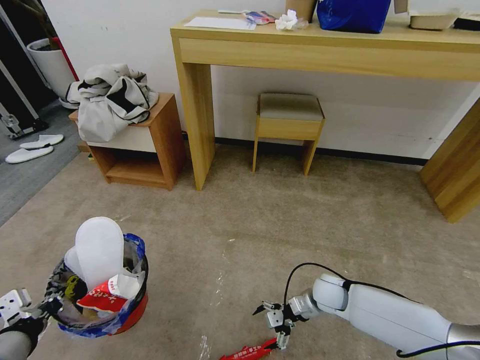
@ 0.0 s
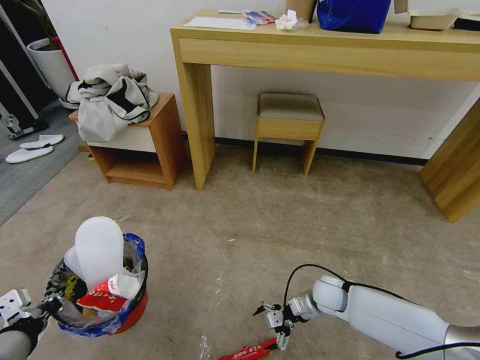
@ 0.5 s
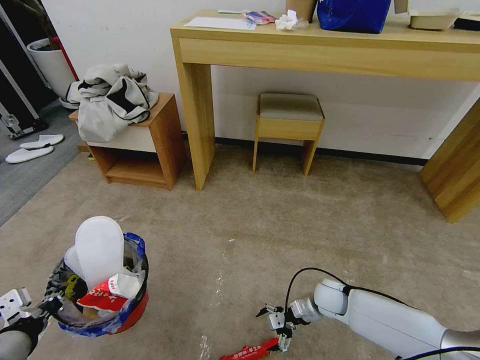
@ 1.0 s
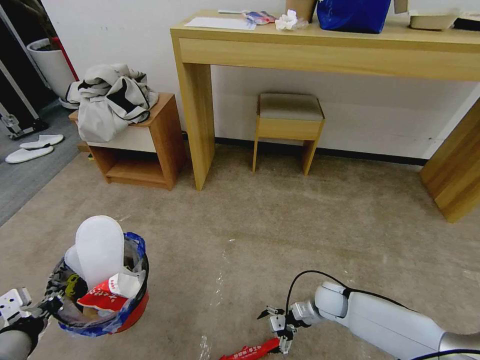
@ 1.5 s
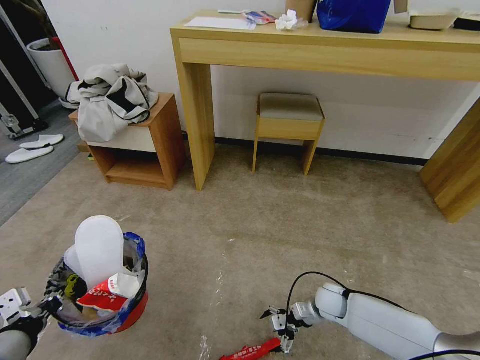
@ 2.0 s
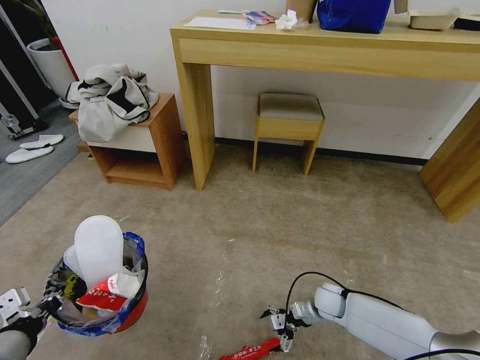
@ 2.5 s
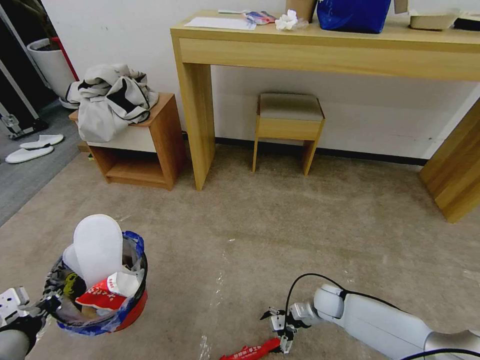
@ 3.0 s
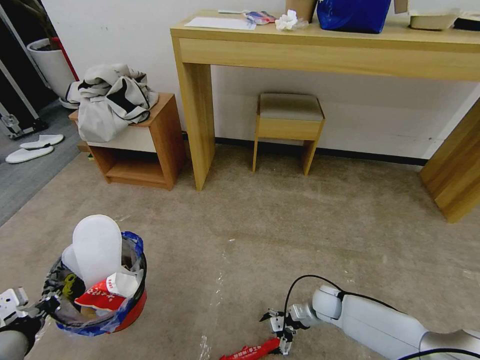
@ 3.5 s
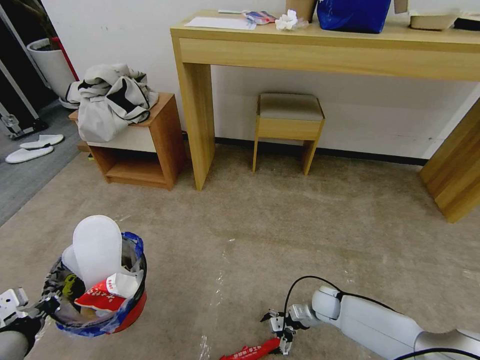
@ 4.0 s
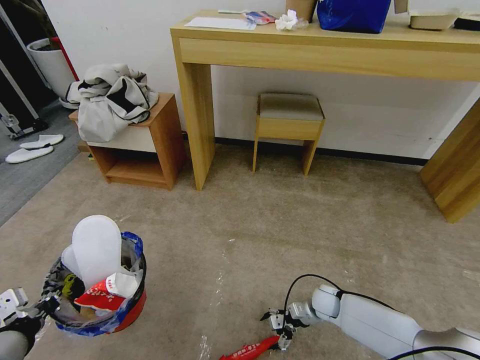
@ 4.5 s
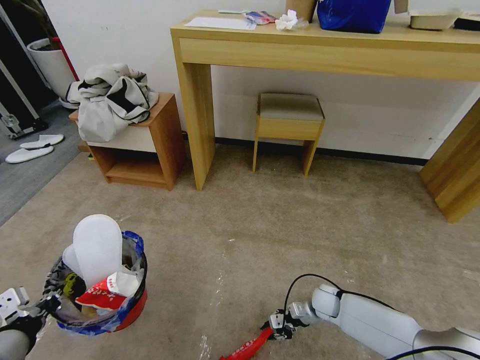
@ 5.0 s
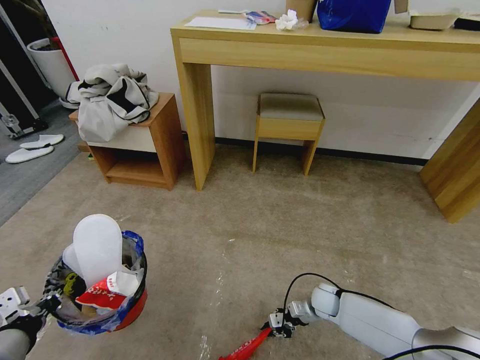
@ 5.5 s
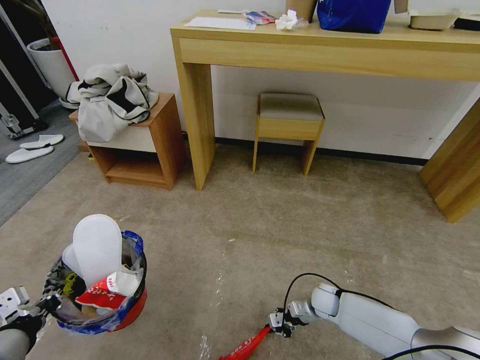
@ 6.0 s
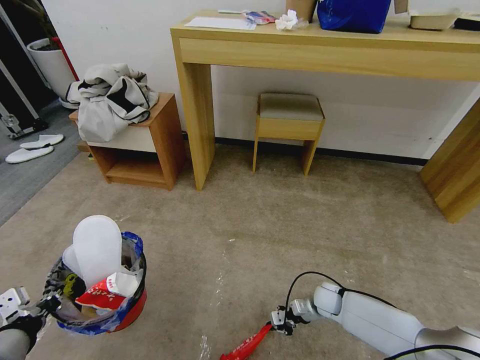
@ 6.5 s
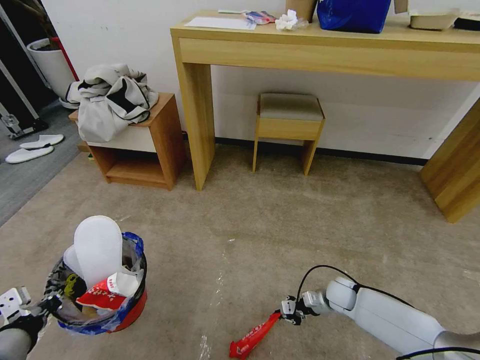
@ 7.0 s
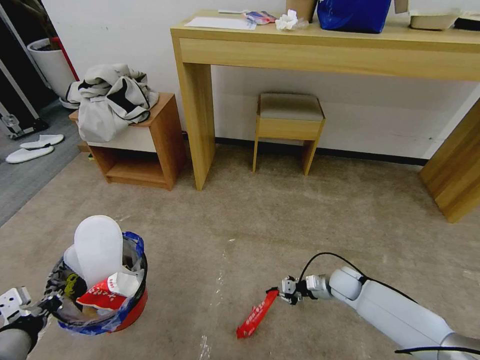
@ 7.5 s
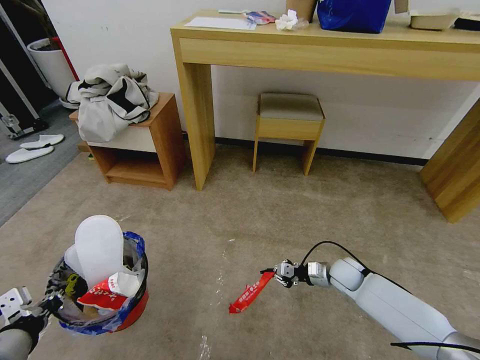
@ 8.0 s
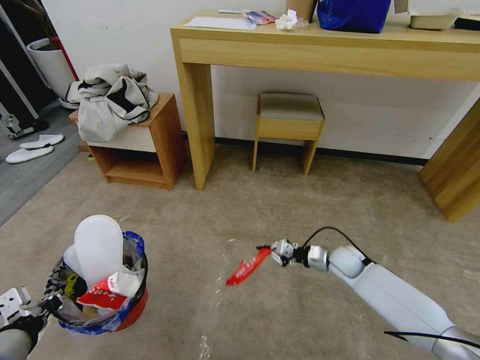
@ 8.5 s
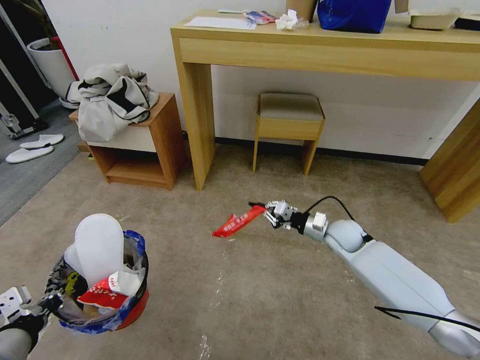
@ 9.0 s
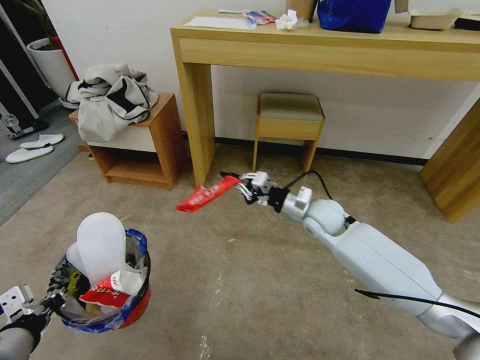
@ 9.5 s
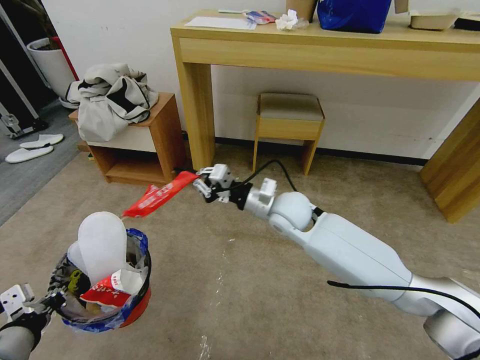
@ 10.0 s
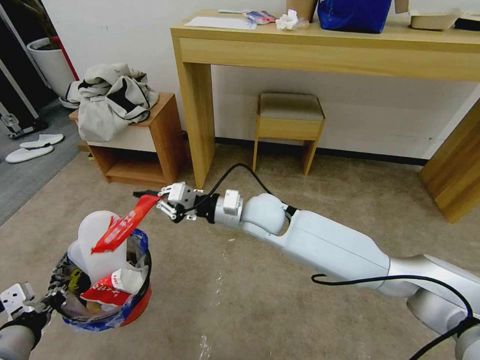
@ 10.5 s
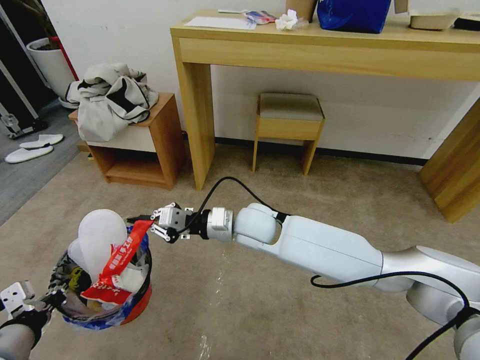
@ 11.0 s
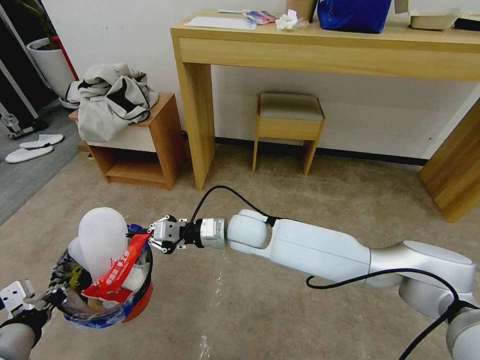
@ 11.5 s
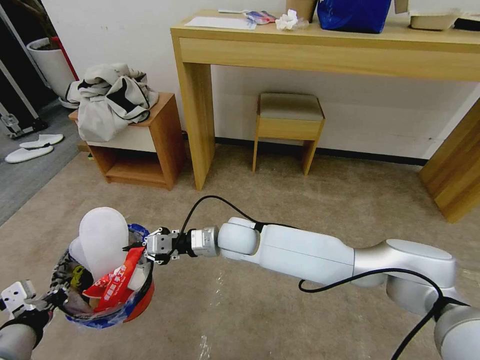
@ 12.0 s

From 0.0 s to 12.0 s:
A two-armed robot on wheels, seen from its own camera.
Task of the whole recording: Pick up the trash bin and place the garbage on the floor into it.
From 0.0 s to 2.0 s: The right gripper ends up roughly 5 cm from where it was.
From 2.0 s to 4.0 s: There are only small adjustments of the grippers.
From 4.0 s to 6.0 s: The right gripper closes.
From 6.0 s to 8.0 s: The right gripper heads upward, covering some 10 cm.
From 8.0 s to 10.0 s: The right gripper moves upward and to the left, about 30 cm.
From 10.0 s to 12.0 s: The right gripper shifts some 15 cm to the left and downward.

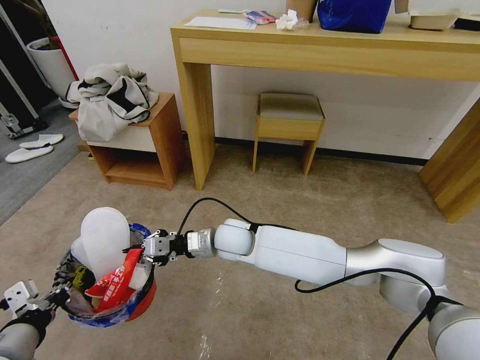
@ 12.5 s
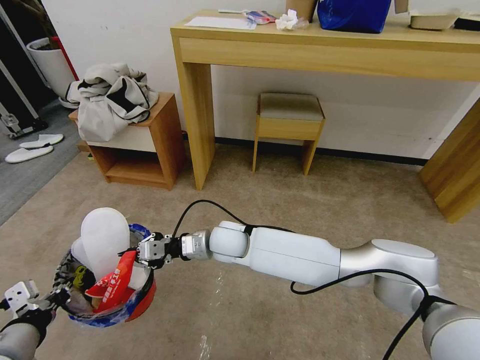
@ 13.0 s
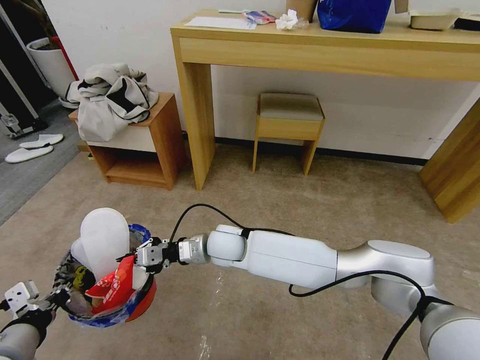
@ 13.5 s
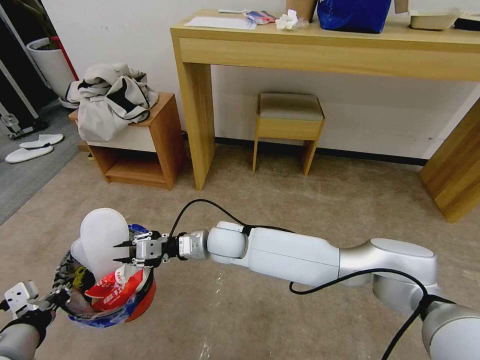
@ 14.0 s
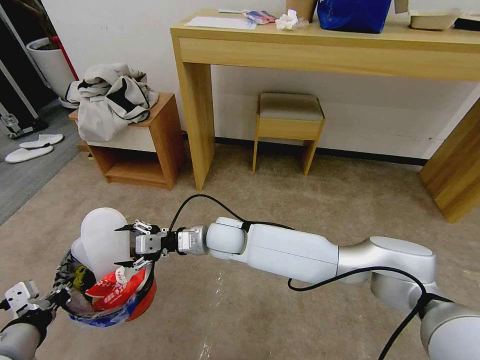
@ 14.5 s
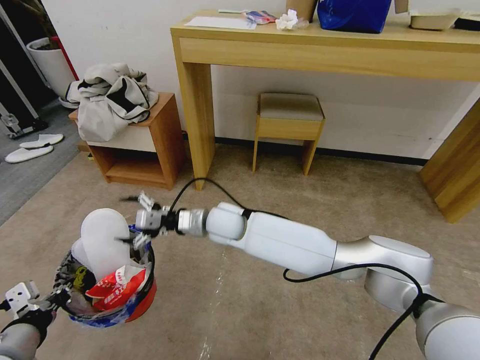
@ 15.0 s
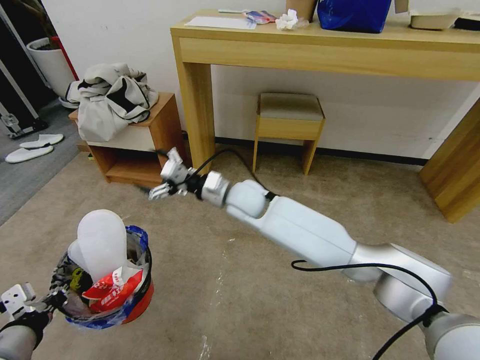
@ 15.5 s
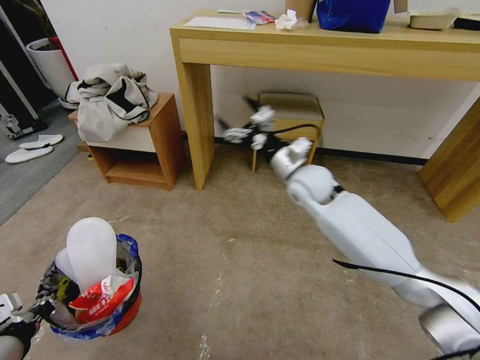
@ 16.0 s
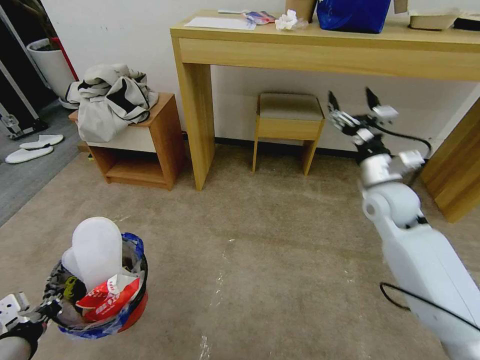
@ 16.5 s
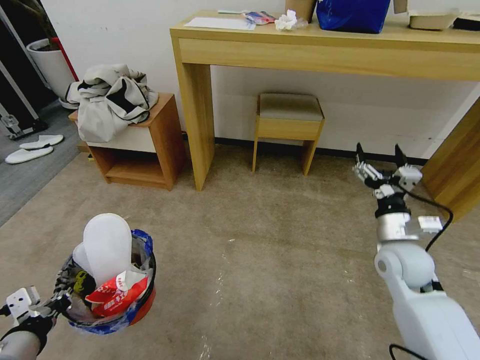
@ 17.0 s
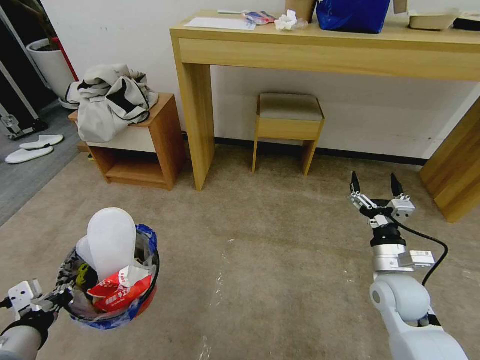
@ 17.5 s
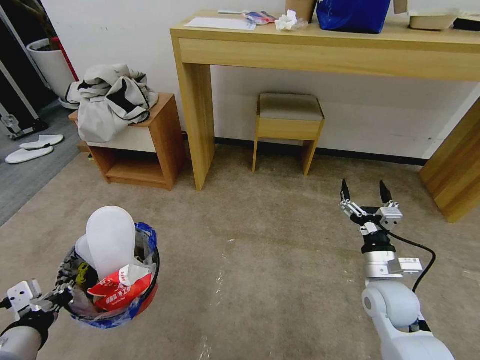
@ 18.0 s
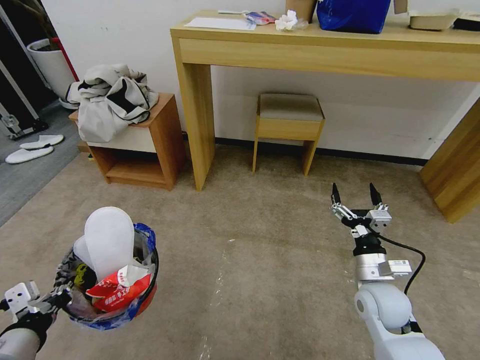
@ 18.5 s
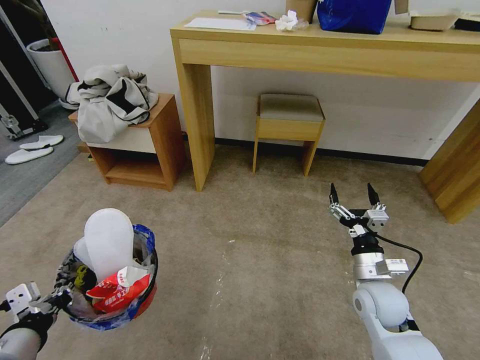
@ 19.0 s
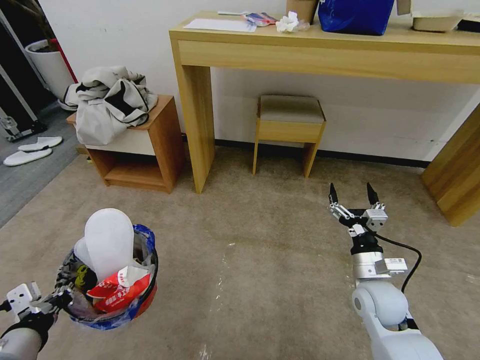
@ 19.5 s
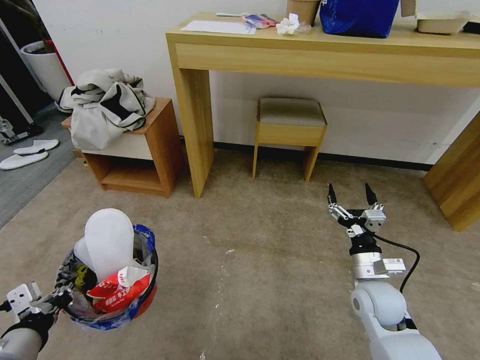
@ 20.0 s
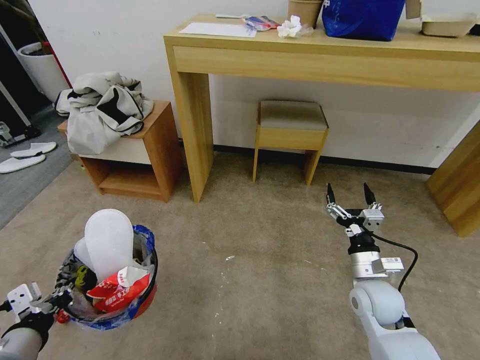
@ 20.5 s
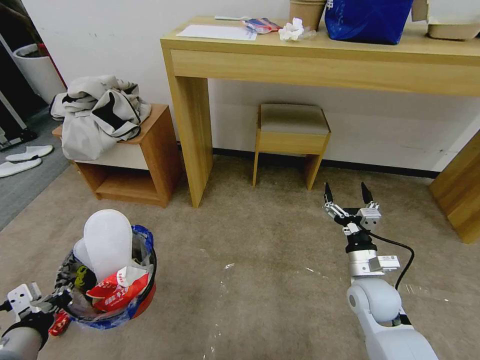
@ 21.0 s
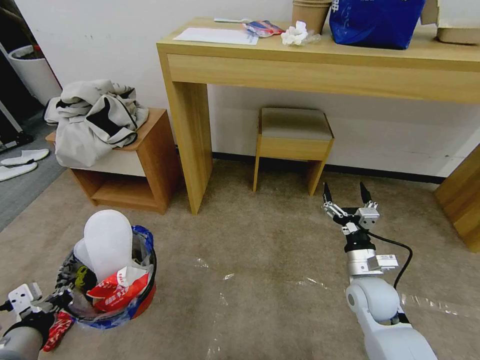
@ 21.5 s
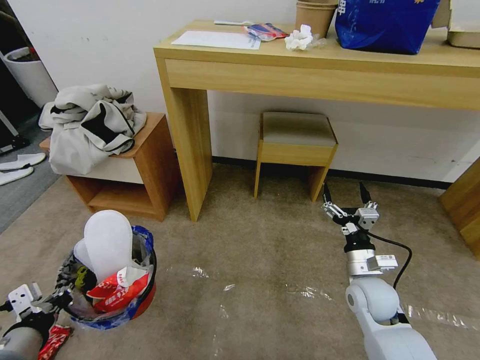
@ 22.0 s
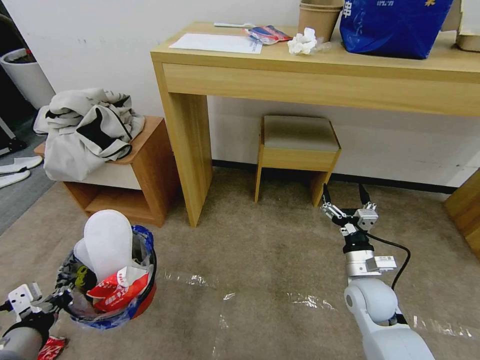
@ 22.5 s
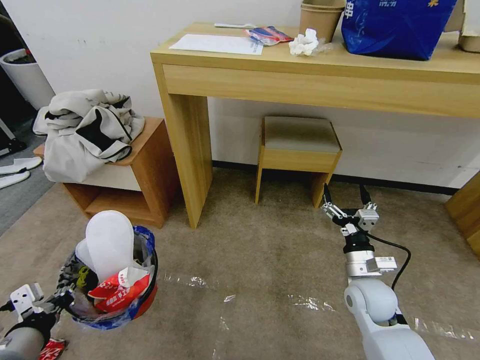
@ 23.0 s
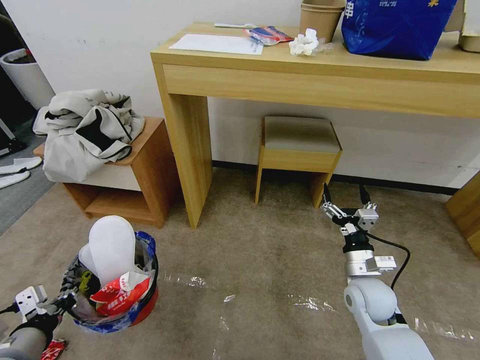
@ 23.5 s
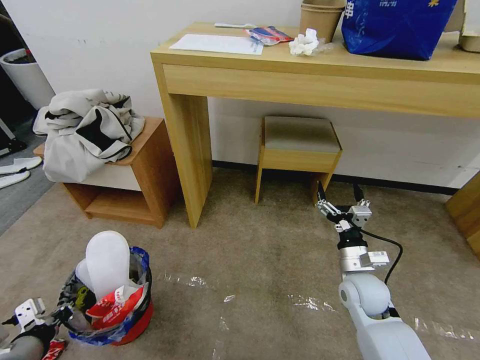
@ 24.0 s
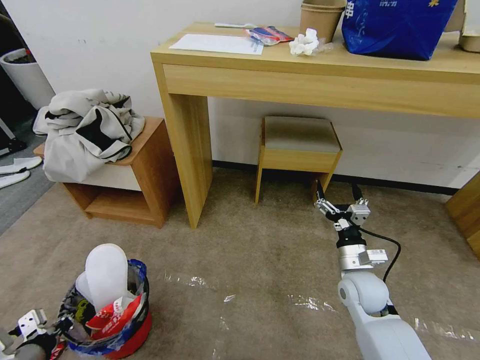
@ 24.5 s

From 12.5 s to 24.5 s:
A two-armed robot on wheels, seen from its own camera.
Task of the whole recording: Pick up the trash bin and place the garbage on the floor into it.
From 12.5 s to 14.5 s: The right gripper opens.
From 14.5 s to 16.5 s: The right gripper goes approximately 35 cm to the right.
From 16.5 s to 18.5 s: The right gripper goes roughly 20 cm downward and backward.
From 22.5 s to 24.5 s: The left gripper travels downward by roughly 10 cm.

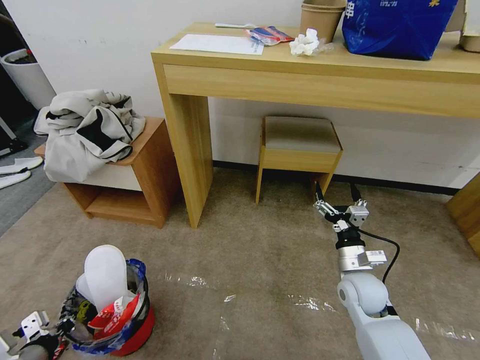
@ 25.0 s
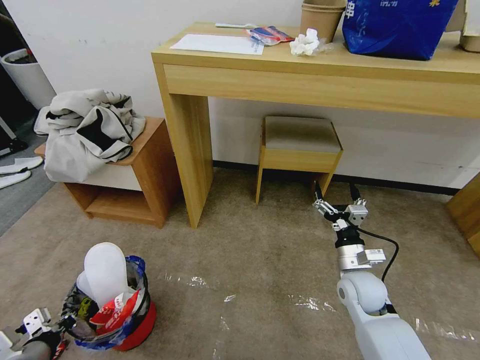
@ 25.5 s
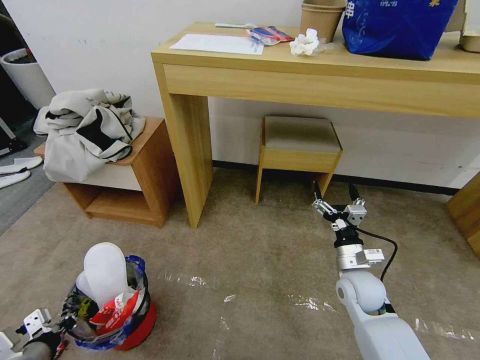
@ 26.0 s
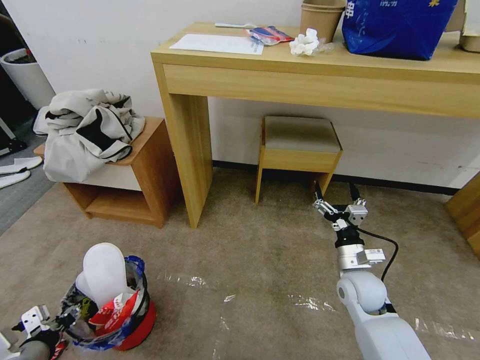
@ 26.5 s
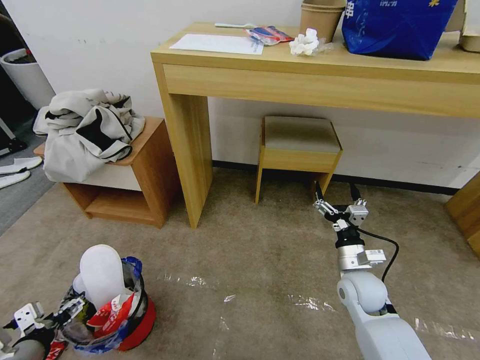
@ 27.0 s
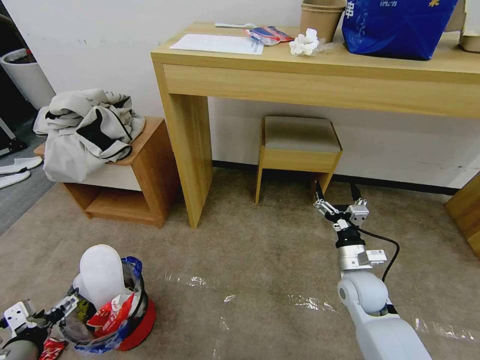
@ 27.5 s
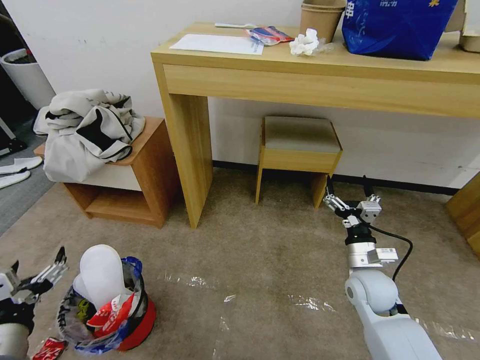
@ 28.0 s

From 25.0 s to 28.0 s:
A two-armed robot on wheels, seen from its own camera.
Task of the whole recording: Pick up the trash bin and place the garbage on the floor into it.
From 25.0 s to 26.5 s: The left gripper opens up.
From 26.5 s to 28.0 s: The left gripper travels upward by about 5 cm, and opens.
